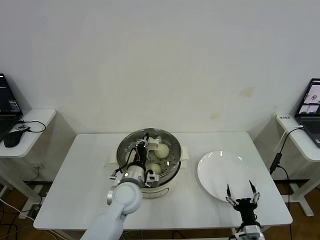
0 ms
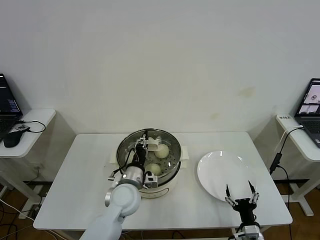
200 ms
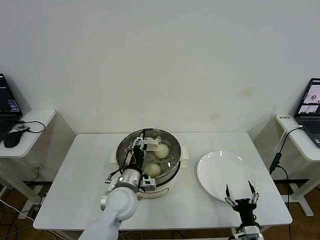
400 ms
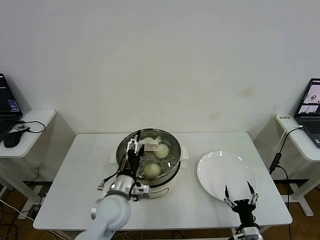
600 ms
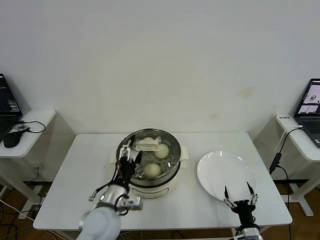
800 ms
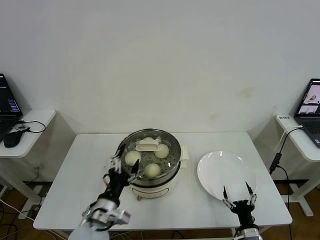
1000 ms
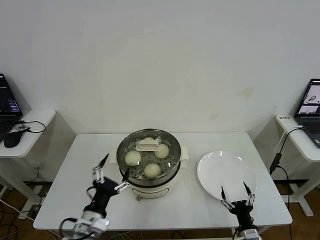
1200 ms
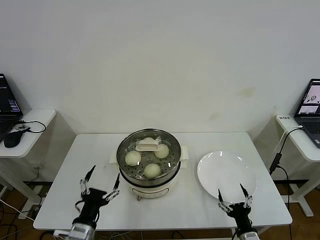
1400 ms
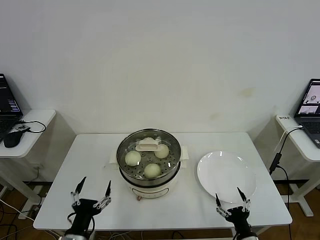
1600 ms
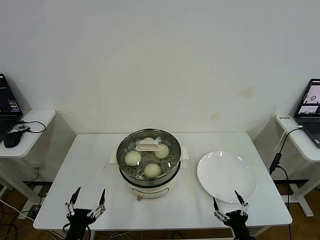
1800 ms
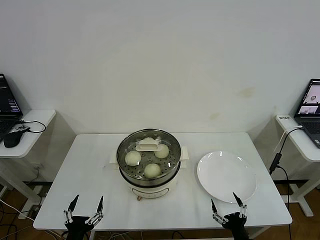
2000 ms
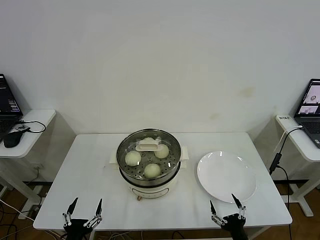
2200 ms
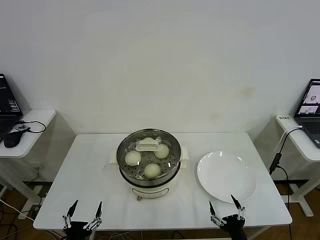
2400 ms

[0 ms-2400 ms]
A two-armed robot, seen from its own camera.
0 ms to 1200 ms: The left gripper heads backward and to the left, covering some 15 cm, and opens up.
1200 ms to 2400 ms: The left gripper moves backward, downward and to the left, about 15 cm, while the right gripper is displaced backward by some 5 cm.

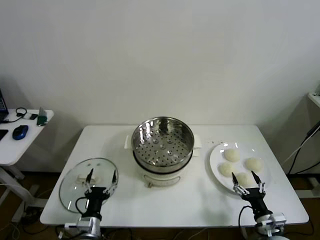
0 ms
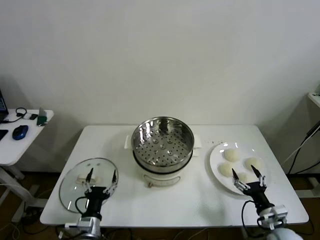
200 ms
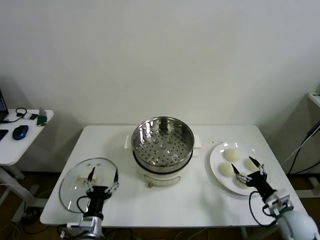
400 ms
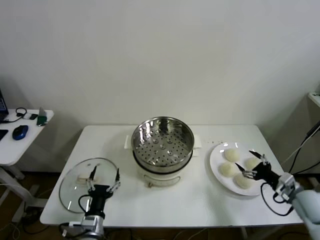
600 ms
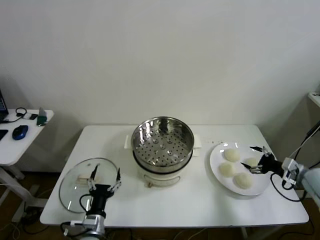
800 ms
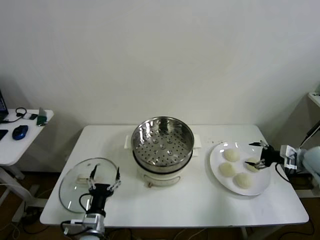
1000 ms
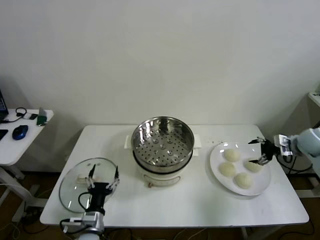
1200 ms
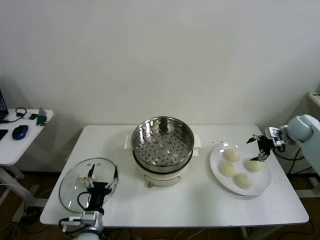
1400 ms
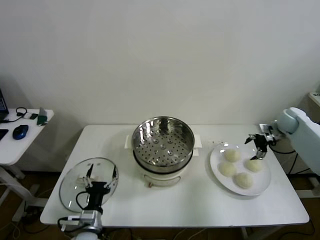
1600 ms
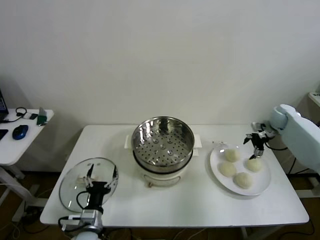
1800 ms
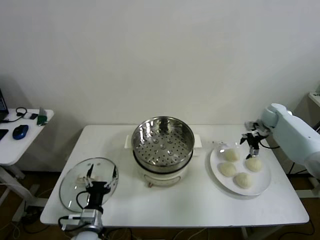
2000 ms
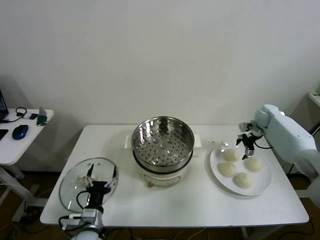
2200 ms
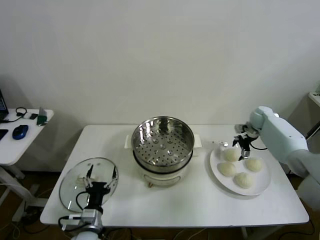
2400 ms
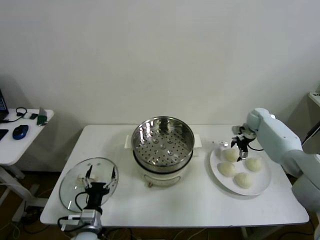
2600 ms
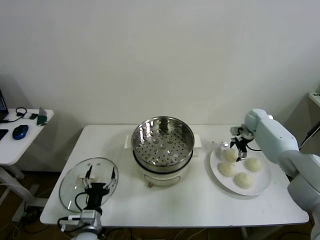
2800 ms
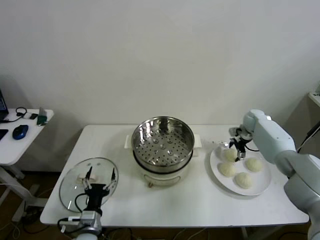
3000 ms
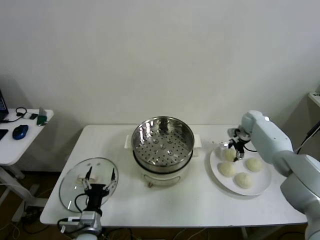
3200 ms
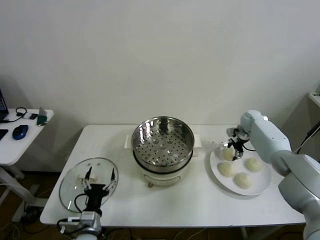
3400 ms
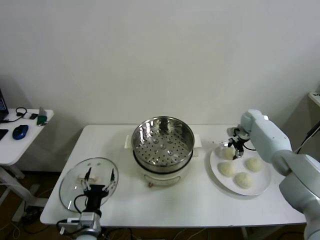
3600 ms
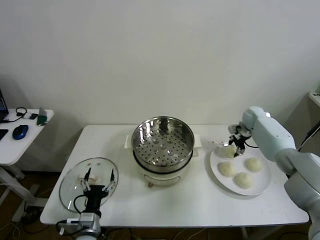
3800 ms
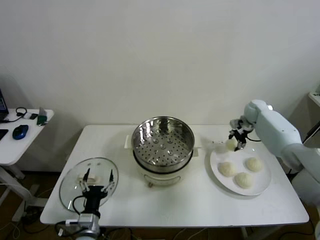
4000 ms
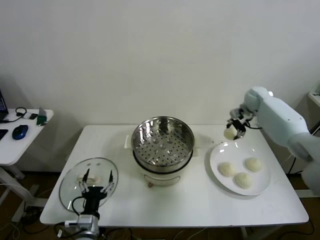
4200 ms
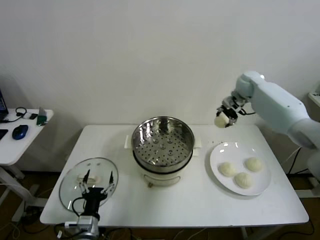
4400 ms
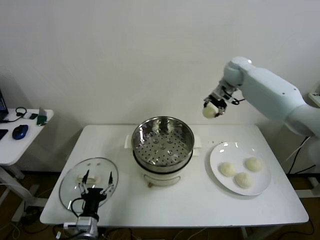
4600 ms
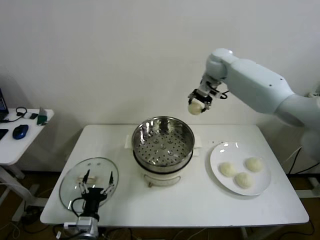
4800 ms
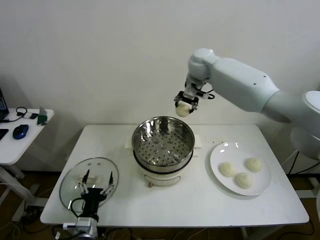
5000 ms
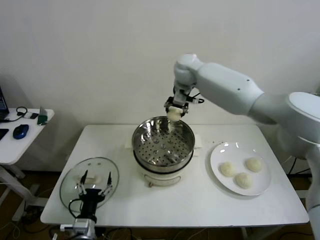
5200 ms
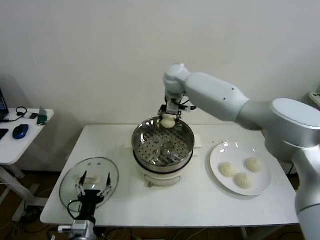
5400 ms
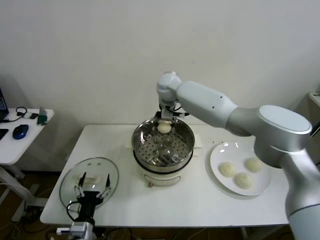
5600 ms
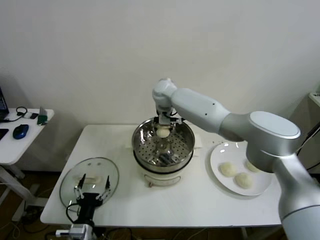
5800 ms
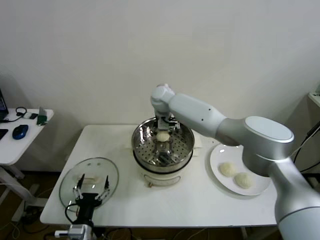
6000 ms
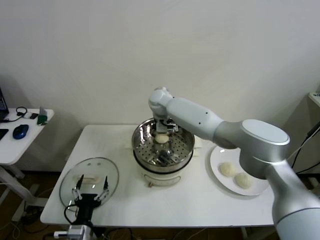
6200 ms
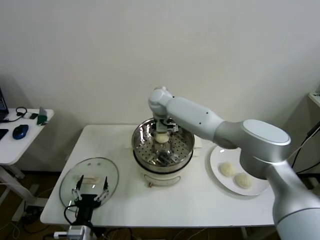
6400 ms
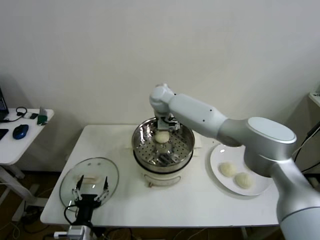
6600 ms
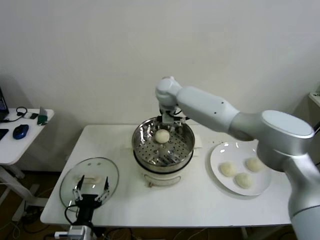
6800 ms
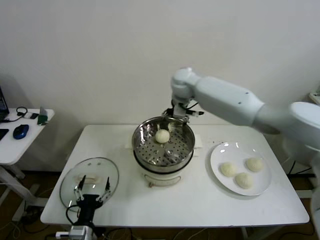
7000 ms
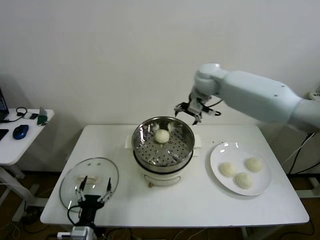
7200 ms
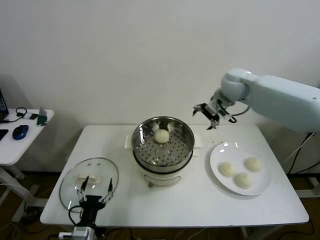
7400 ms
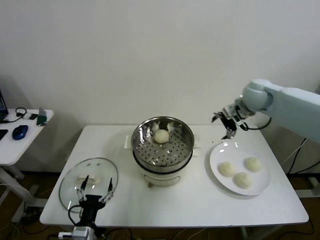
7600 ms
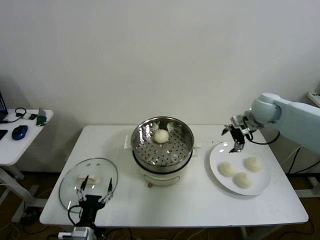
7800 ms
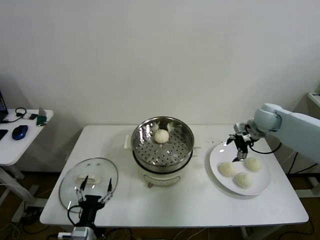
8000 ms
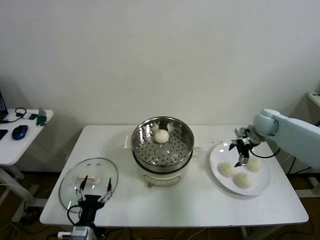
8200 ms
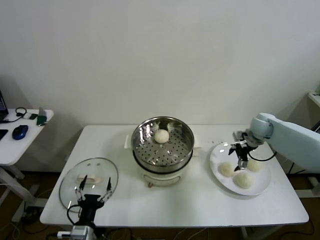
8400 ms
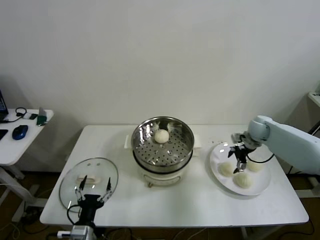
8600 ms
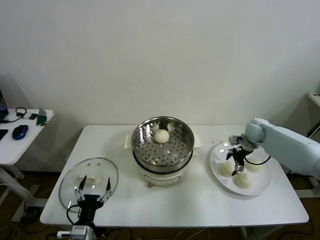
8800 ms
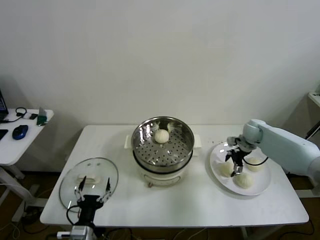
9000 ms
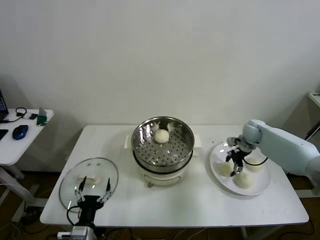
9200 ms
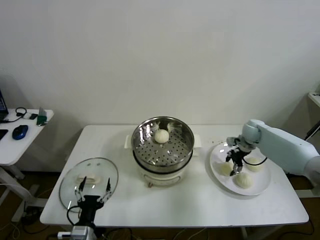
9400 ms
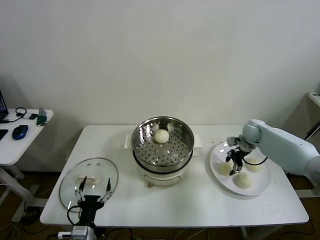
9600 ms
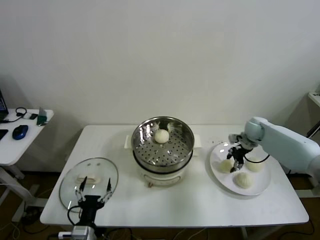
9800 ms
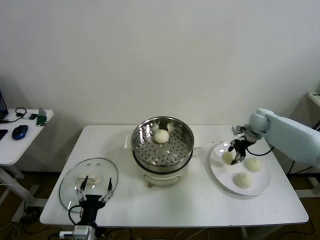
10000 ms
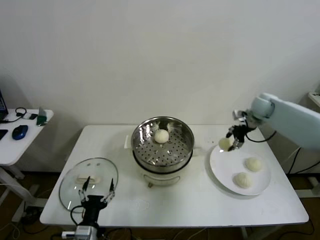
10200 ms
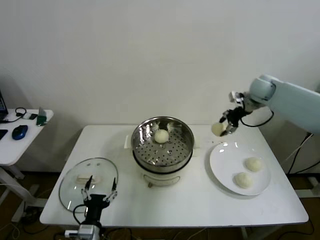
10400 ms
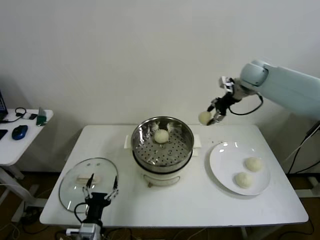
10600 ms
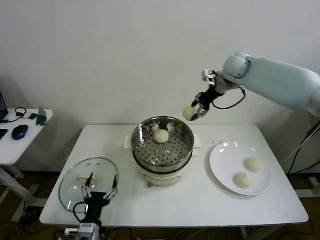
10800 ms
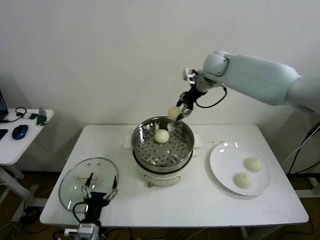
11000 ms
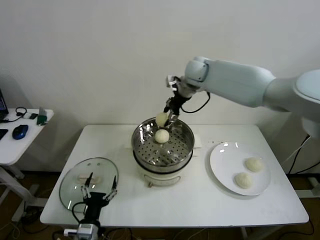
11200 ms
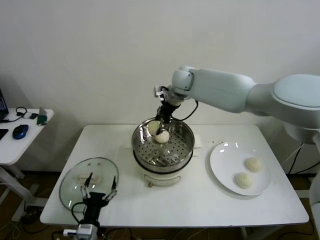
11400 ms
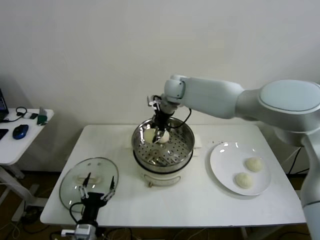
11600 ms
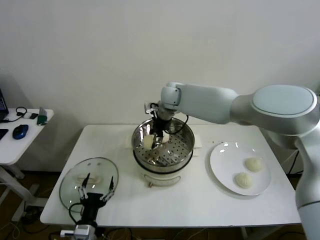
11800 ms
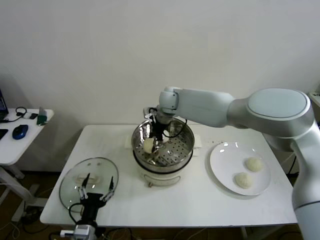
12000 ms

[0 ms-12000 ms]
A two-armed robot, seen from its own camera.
Step, 0 ms to 3400 ms: Grasp the baozi in the plate with right gripper.
Step, 3600 ms to 6400 ms: Place the baozi on the steamer with right gripper.
Step, 6600 ms to 9600 ms: Grasp the baozi in the plate with right gripper.
1600 ms to 3000 ms: The right gripper shifts approximately 15 cm to the left, forward and downward.
3000 ms to 4400 ms: The right gripper travels upward and to the left by about 20 cm, and closes.
4400 ms to 6000 ms: The right gripper shifts about 35 cm to the left.
6000 ms to 7600 ms: The right gripper travels to the right by about 30 cm, and opens its fingers.
7600 ms to 9000 ms: The right gripper is displaced downward by about 20 cm.
9000 ms to 10400 ms: The right gripper moves upward, about 20 cm, and closes up.
10400 ms to 12000 ms: The right gripper travels to the left by about 35 cm.

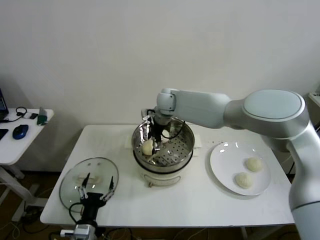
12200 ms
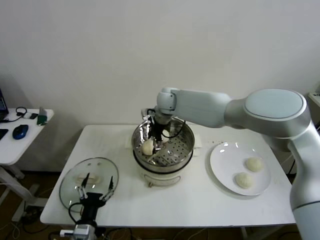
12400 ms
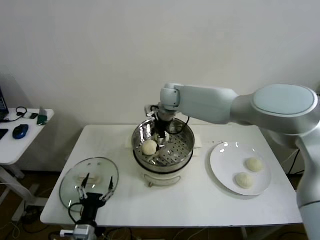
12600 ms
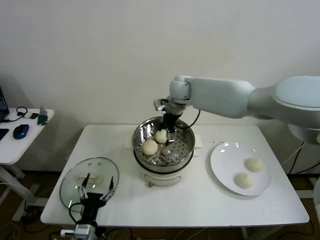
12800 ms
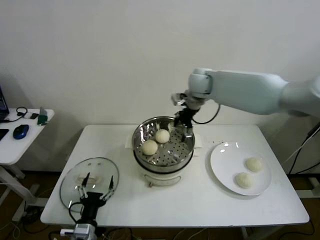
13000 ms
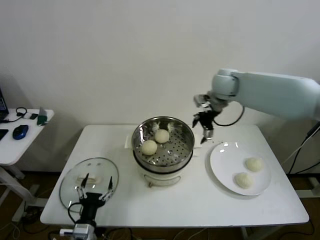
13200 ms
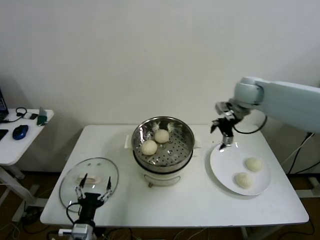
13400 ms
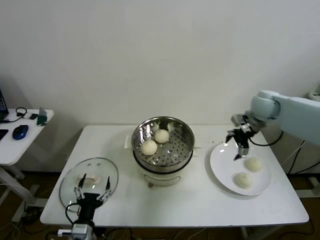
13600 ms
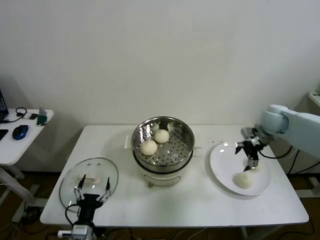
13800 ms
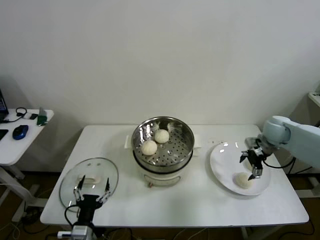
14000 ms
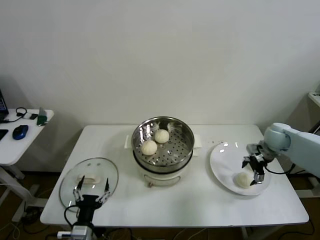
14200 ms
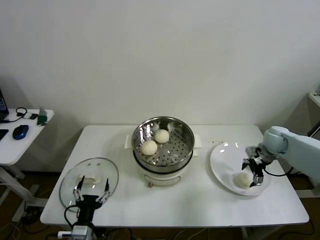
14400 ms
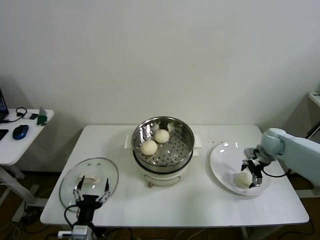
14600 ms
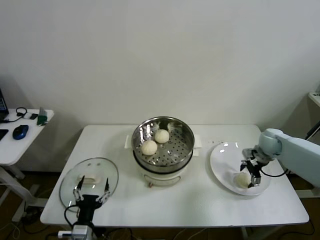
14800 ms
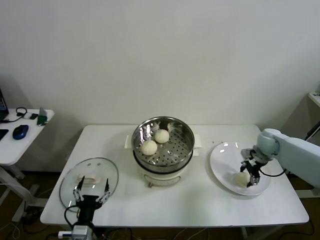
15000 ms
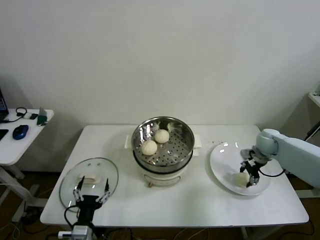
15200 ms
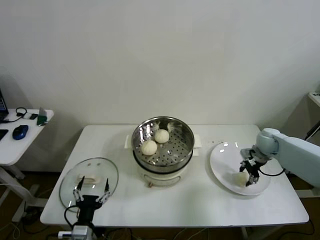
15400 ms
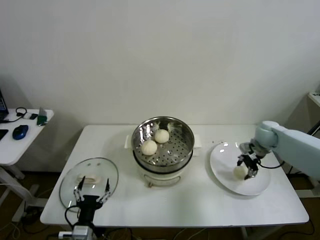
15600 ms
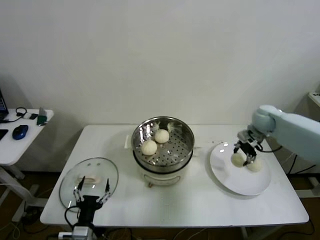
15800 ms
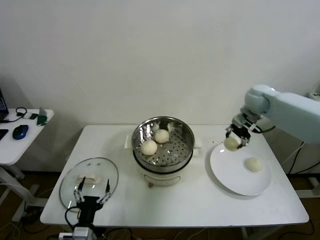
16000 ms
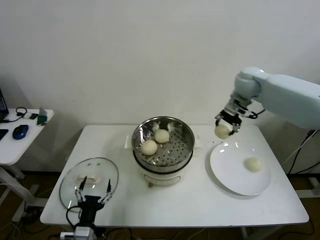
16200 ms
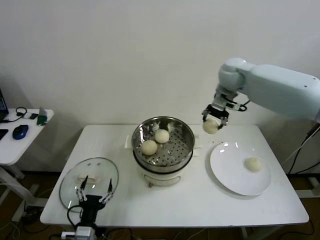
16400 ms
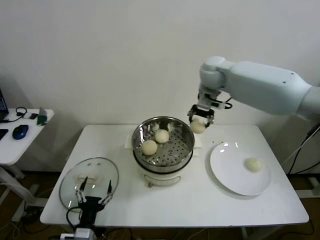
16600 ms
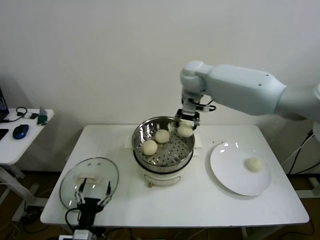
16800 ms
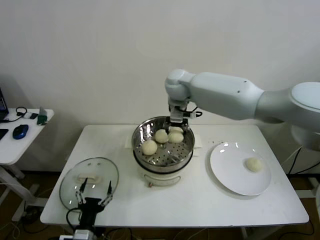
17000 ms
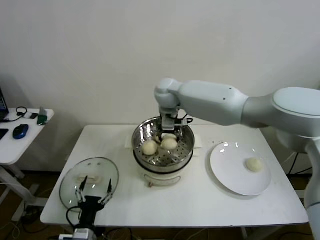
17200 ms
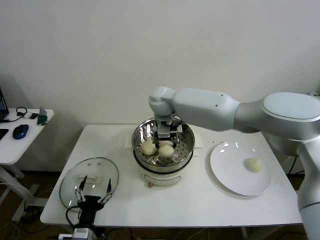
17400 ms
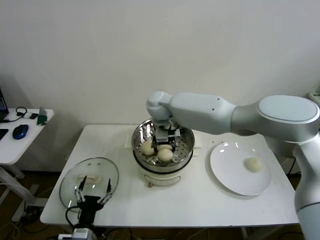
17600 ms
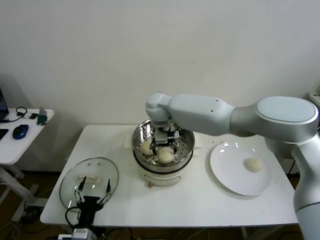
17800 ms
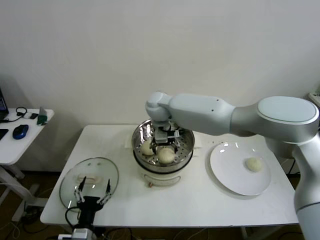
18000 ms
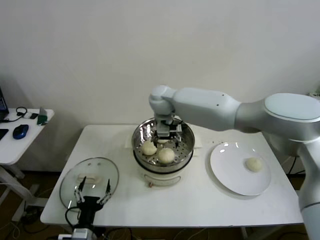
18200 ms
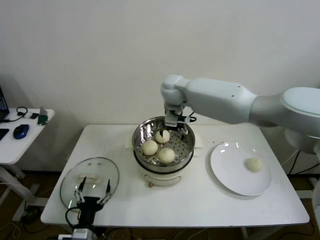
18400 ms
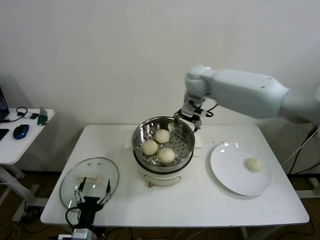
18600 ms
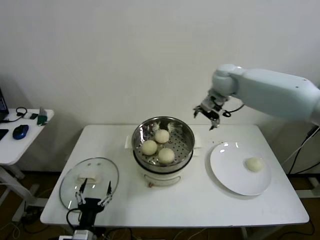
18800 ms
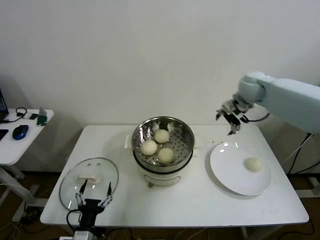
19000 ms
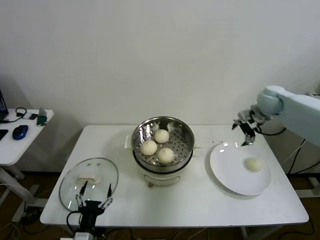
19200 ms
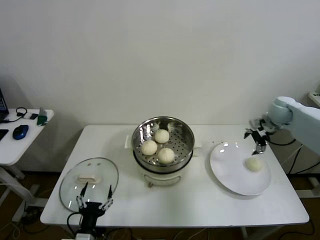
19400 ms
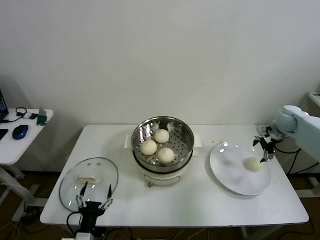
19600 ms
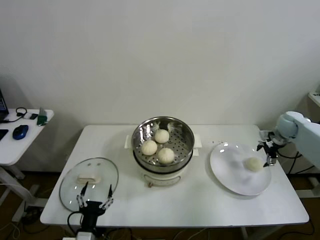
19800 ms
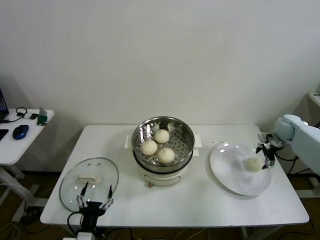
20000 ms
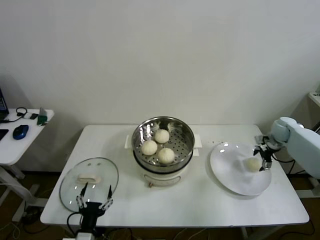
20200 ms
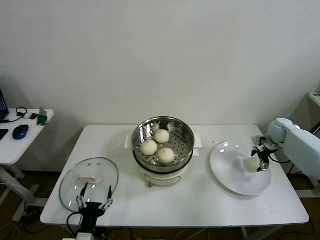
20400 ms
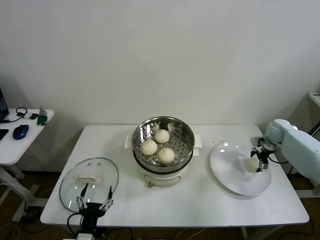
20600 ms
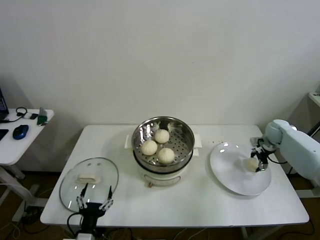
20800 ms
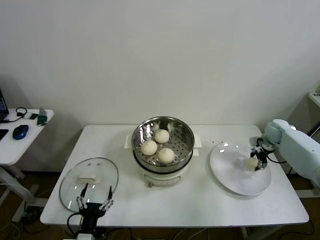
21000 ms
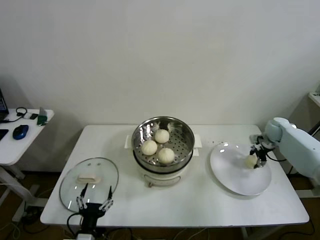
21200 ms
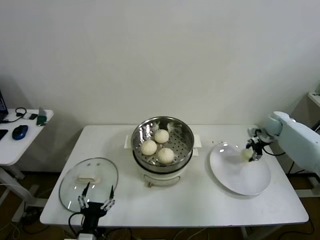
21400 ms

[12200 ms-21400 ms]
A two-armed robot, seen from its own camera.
Step, 12400 ms to 15200 ms: Grasp the baozi in the plate with right gripper.
Step, 15400 ms to 18000 ms: Place the baozi on the steamer with right gripper.
Step, 18200 ms to 20600 ms: Grasp the baozi in the plate with right gripper.
12200 ms to 13800 ms: The right gripper shifts about 35 cm to the right.
13800 ms to 15200 ms: The right gripper goes about 10 cm downward, and closes.
15200 ms to 16800 ms: The right gripper moves to the left and upward, about 40 cm.
16800 ms to 18400 ms: The right gripper travels to the left by some 5 cm, and opens its fingers.
18400 ms to 19800 ms: The right gripper moves to the right, about 50 cm.
19800 ms to 21400 ms: The right gripper changes place by about 5 cm, and closes its fingers.
